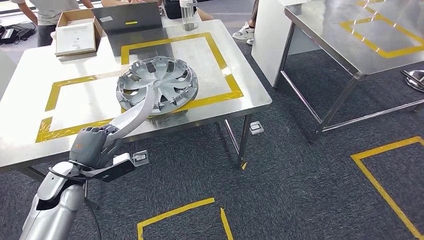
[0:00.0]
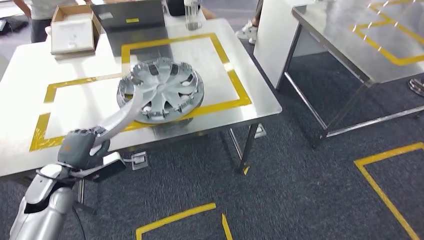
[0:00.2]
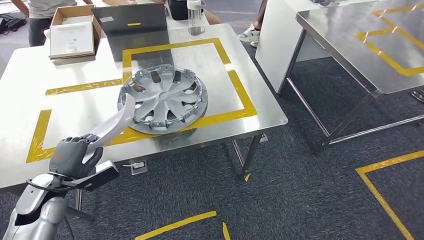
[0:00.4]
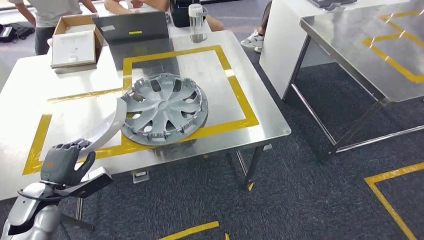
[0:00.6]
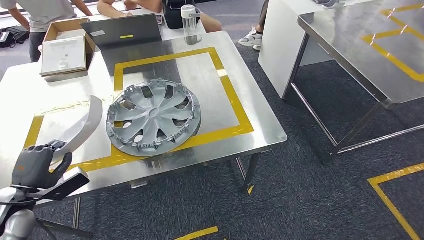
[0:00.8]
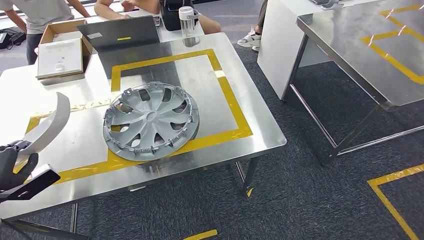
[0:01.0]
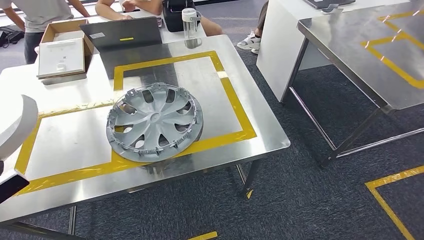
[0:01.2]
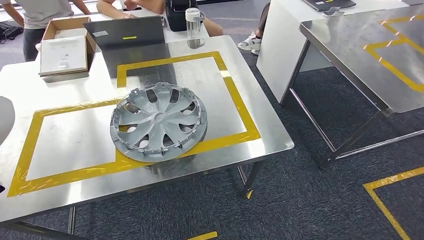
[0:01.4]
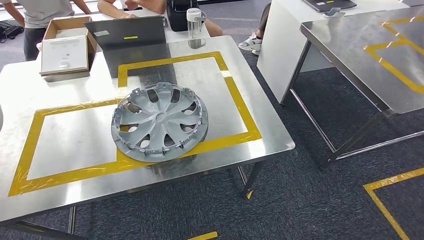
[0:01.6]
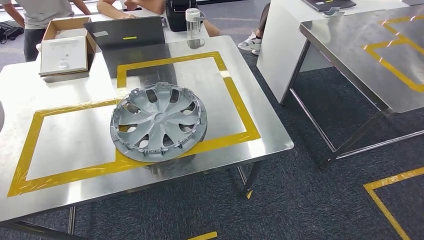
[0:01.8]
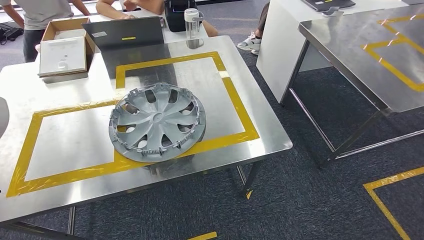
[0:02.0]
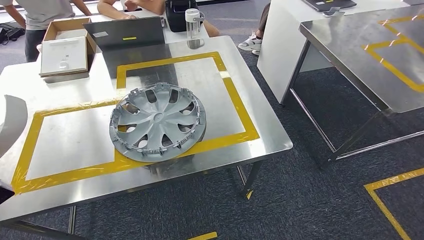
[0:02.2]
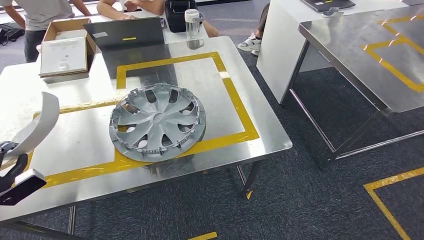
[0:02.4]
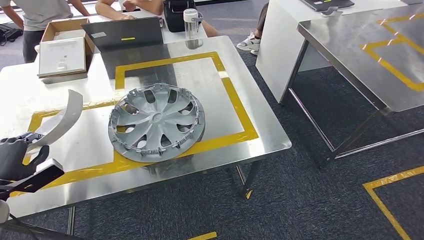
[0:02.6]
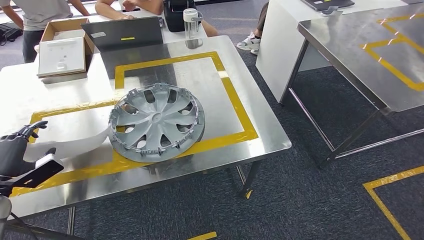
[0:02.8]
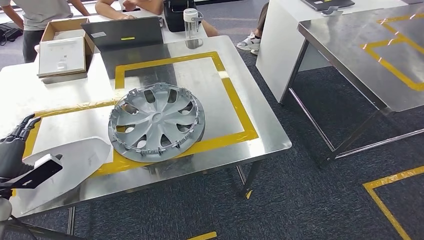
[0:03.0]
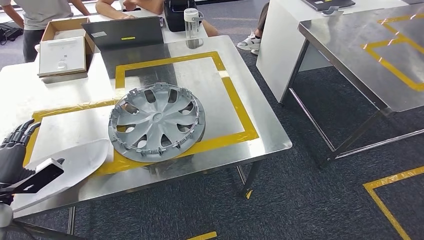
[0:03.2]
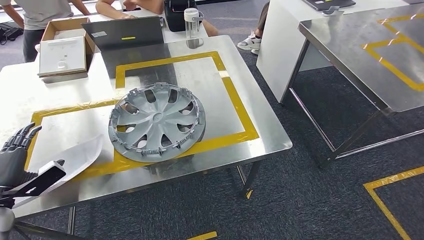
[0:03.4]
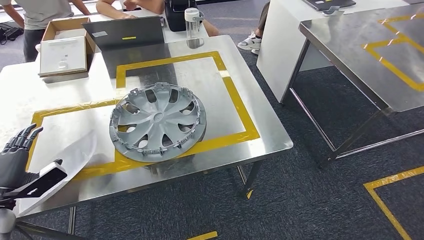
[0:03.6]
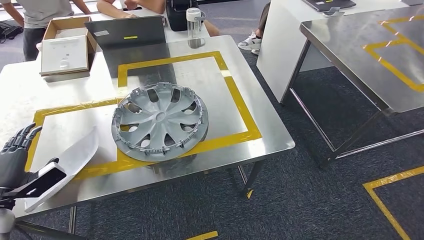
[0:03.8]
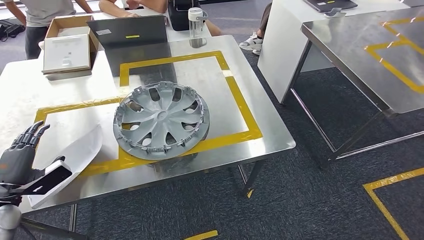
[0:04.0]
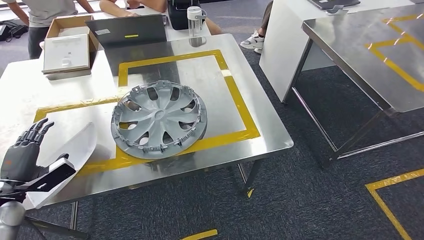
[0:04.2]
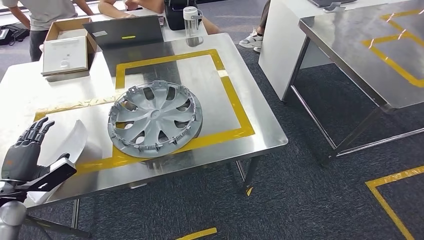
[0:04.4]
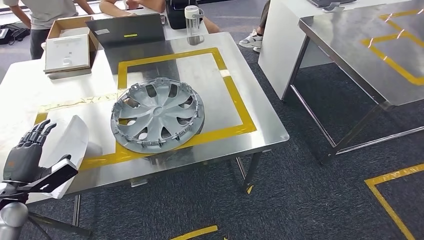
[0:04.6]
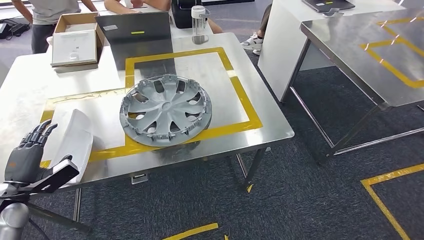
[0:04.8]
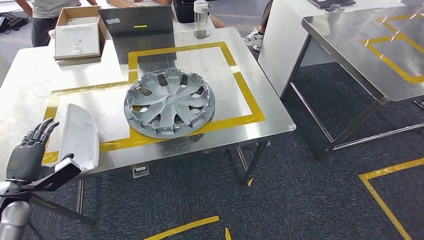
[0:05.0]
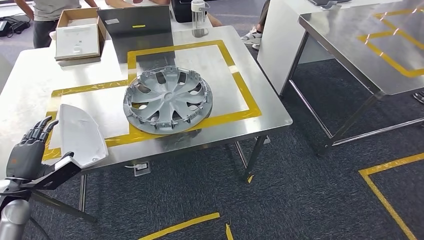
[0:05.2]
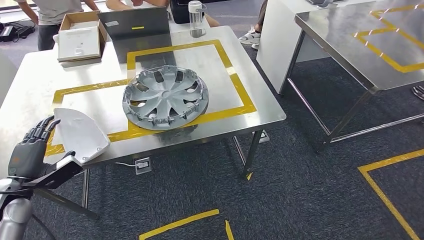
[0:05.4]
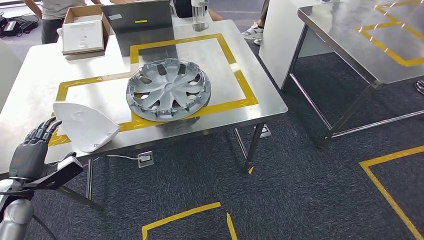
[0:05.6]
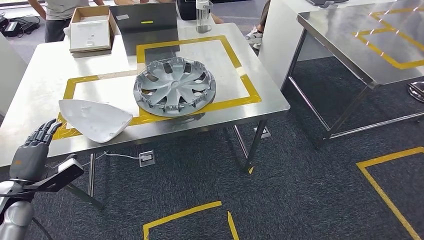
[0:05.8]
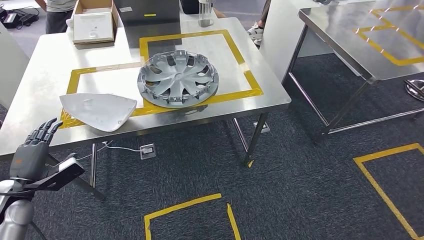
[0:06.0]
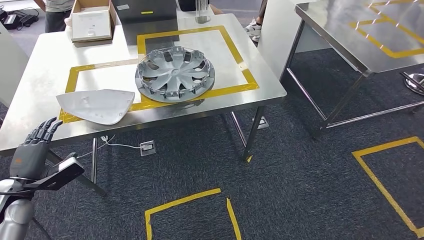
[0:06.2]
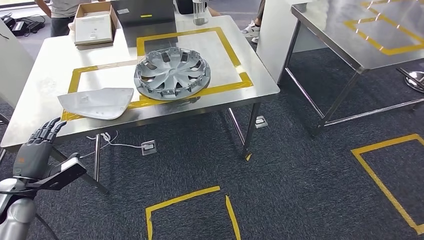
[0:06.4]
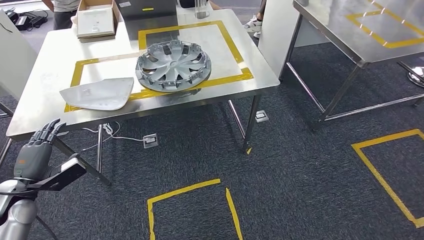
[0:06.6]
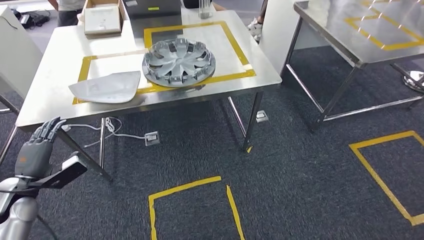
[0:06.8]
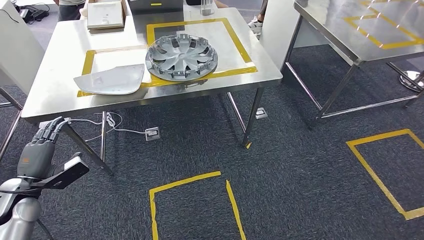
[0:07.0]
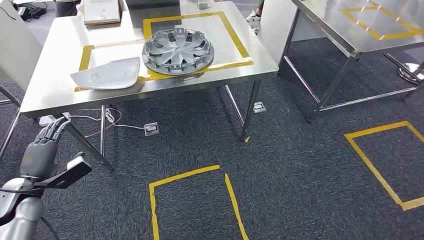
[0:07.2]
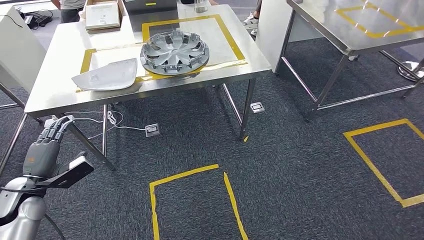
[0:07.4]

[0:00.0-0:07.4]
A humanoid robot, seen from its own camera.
Step, 0:00.4 to 0:04.8: Insert the small parts into the corresponding holes on the workbench.
Step, 0:05.0 to 0:07.4: Move to the initial position at the workbench.
0:01.4 to 0:03.0: The left hand goes some 10 cm forward and to the right.
